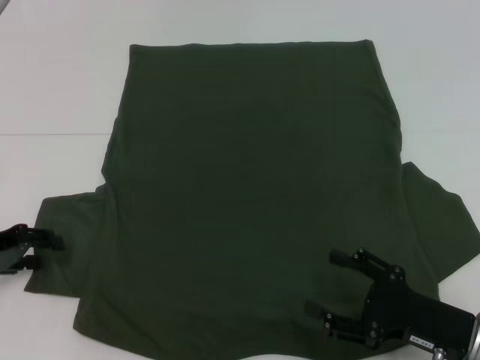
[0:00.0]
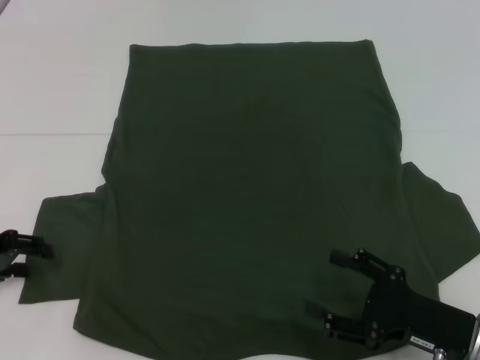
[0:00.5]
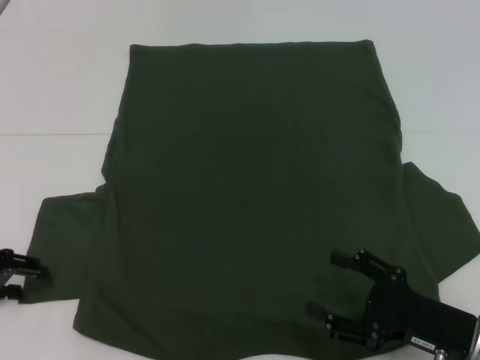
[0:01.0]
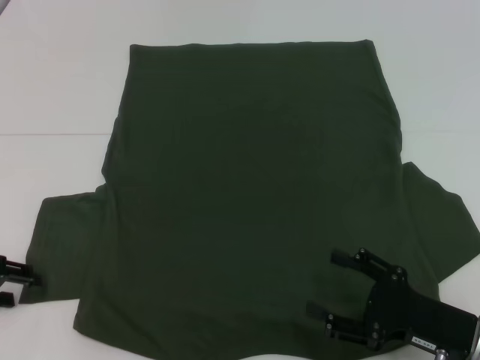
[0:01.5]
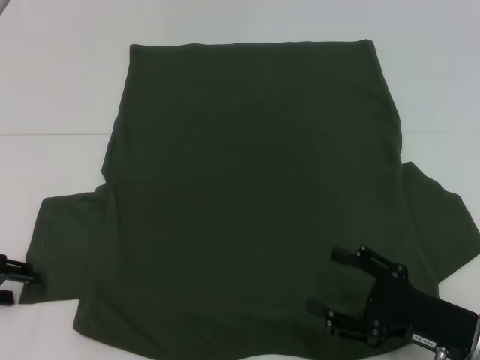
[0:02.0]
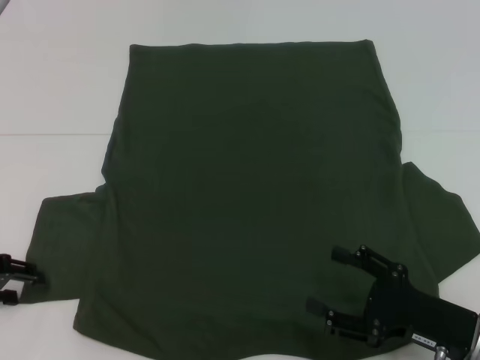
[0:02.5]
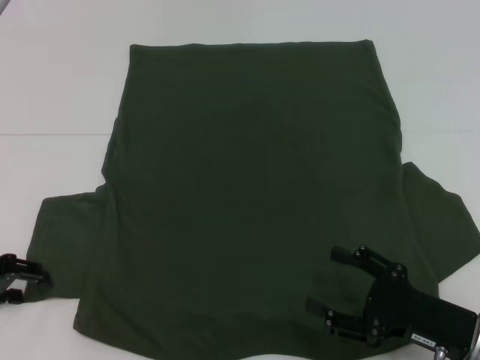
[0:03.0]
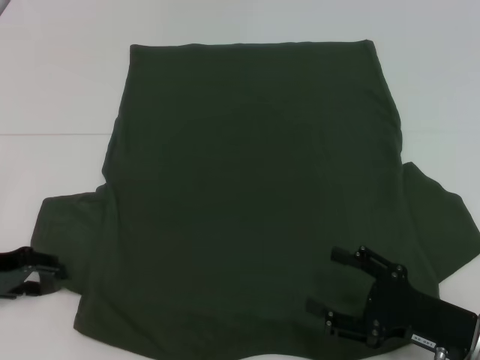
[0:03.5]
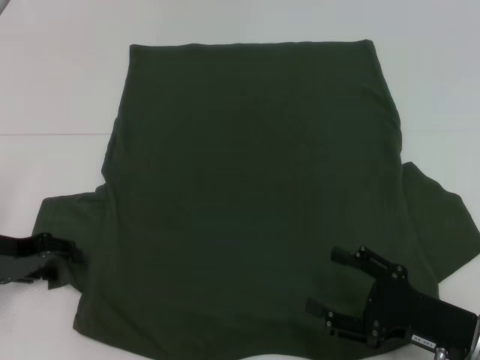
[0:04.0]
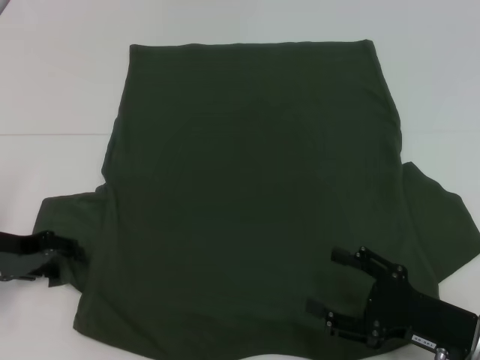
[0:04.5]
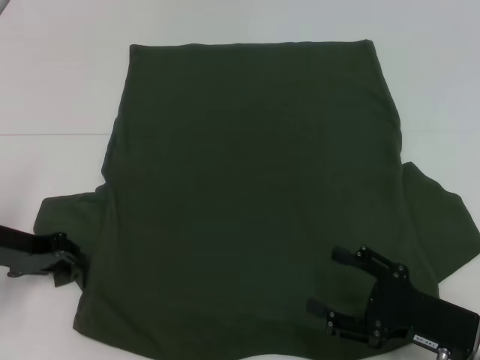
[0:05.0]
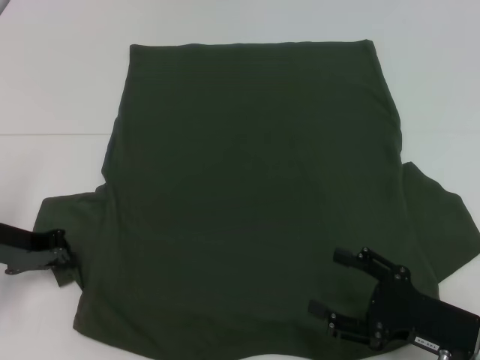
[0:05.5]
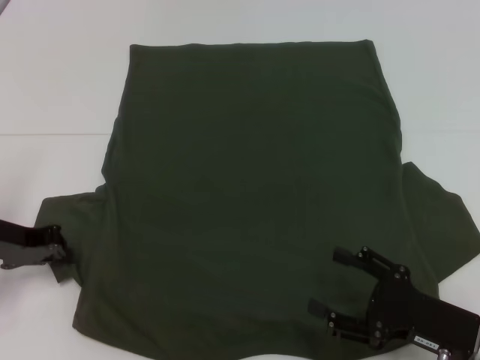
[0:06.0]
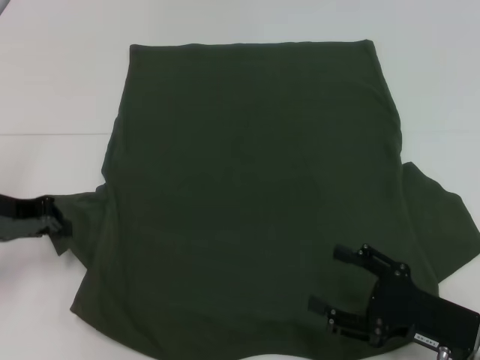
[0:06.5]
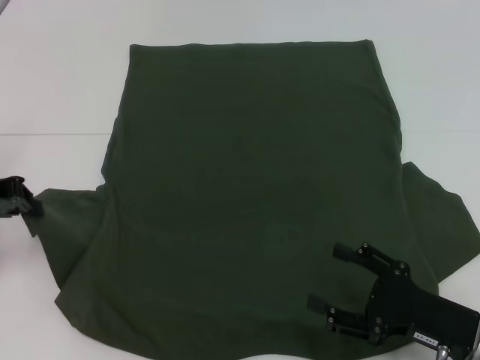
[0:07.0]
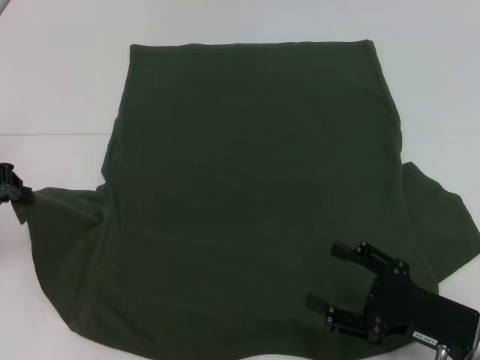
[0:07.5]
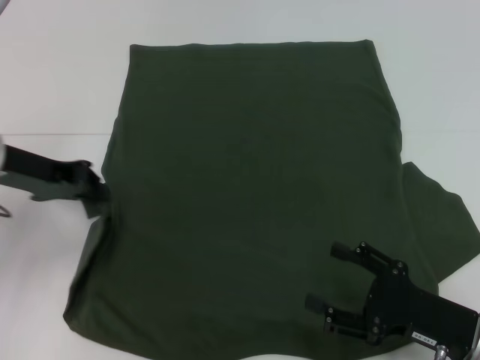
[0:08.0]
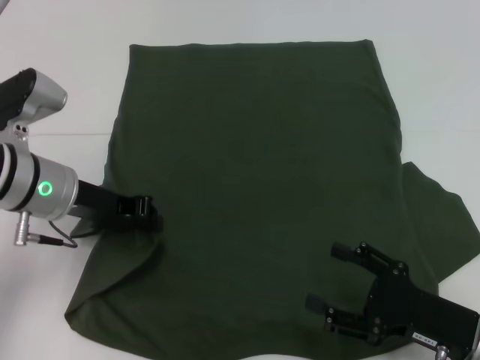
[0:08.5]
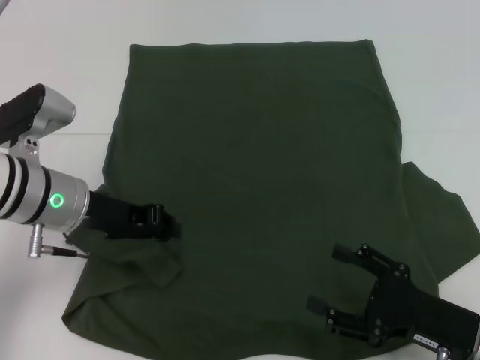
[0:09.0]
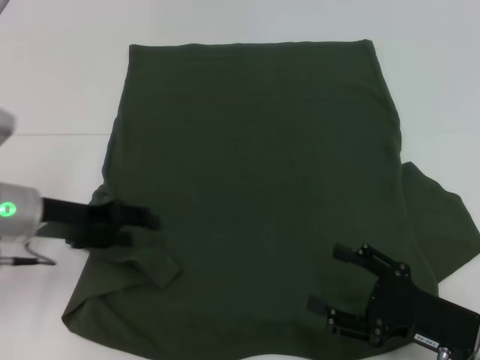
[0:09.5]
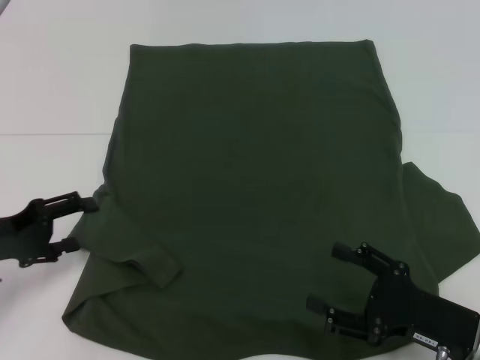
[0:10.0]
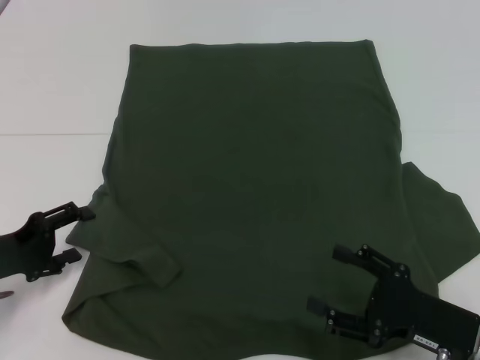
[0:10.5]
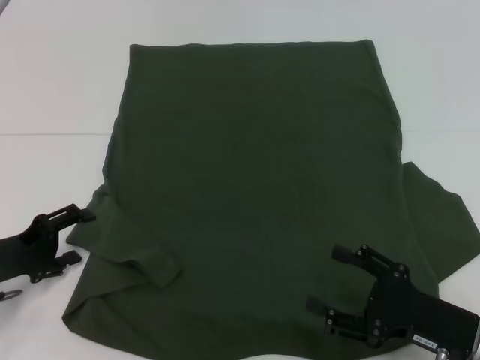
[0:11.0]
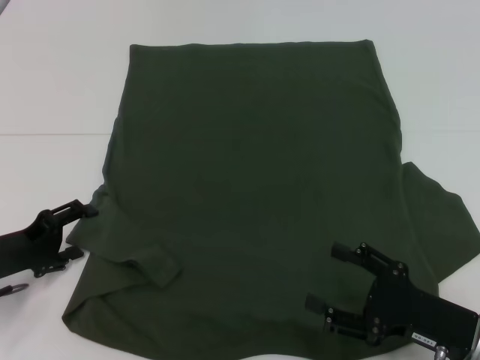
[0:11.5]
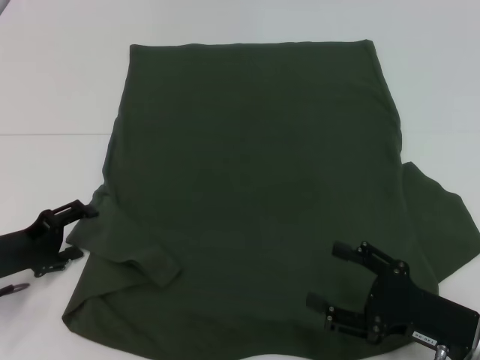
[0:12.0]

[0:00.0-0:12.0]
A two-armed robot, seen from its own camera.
0:00.0 to 0:04.0: There are only small adjustments of the grippers.
0:04.0 to 0:06.0: The left gripper closes.
0:06.0 to 0:08.0: The left gripper is displaced upward by roughly 10 cm.
0:08.0 to 0:10.0: The left gripper travels downward, backward and to the left by approximately 10 cm, and opens up.
0:10.0 to 0:12.0: The grippers make only small movements.

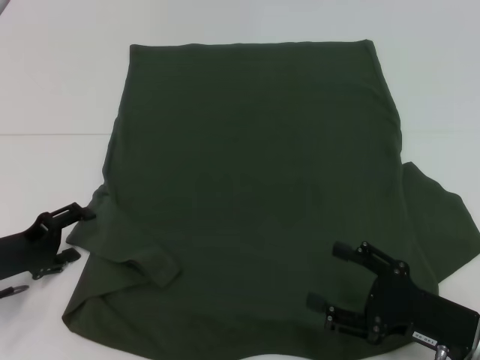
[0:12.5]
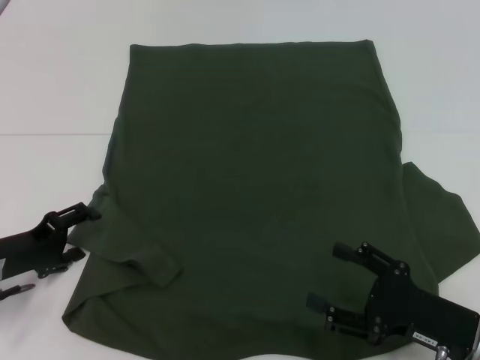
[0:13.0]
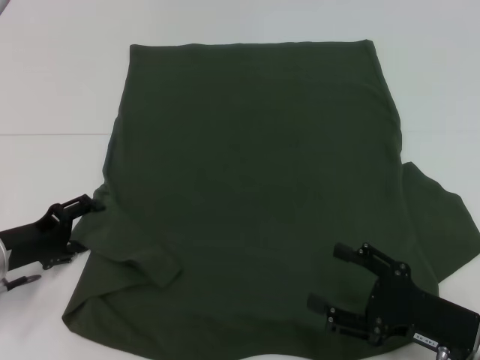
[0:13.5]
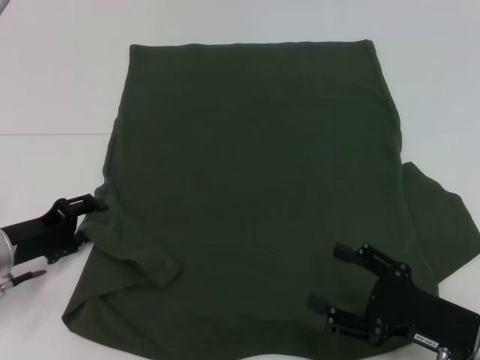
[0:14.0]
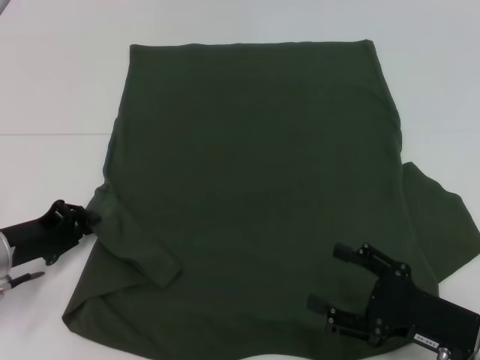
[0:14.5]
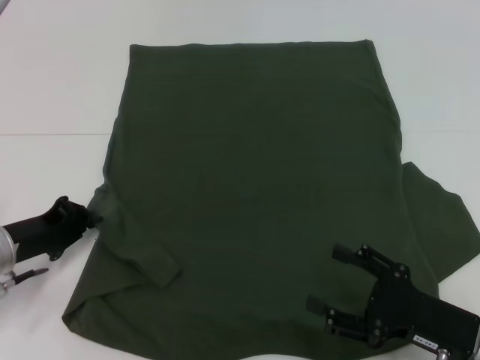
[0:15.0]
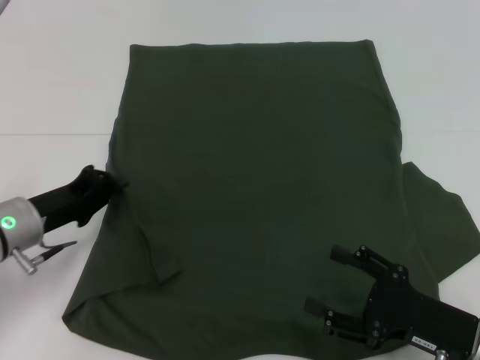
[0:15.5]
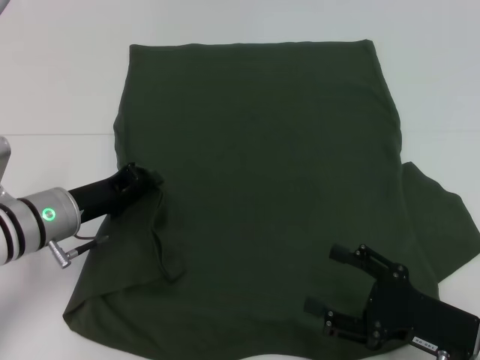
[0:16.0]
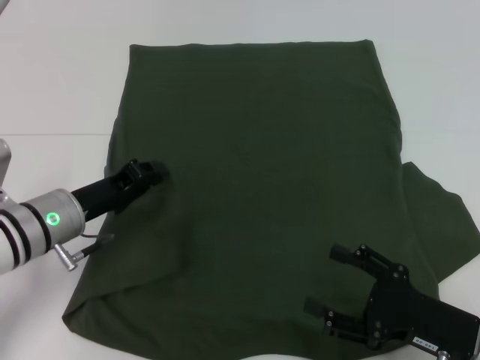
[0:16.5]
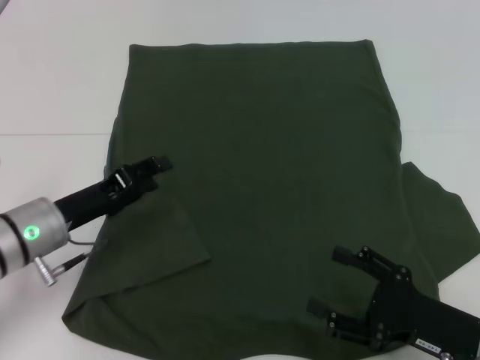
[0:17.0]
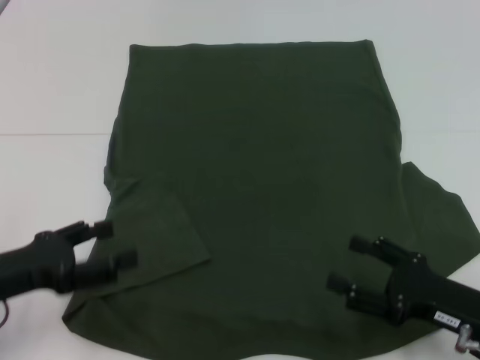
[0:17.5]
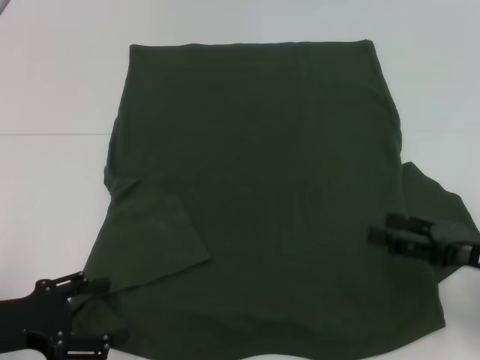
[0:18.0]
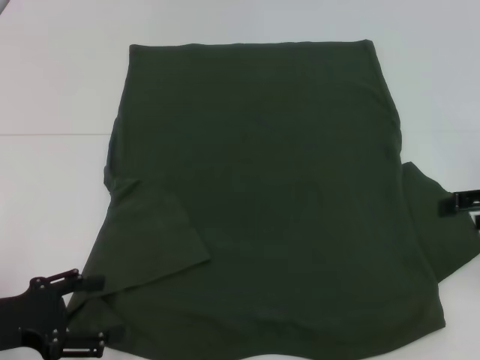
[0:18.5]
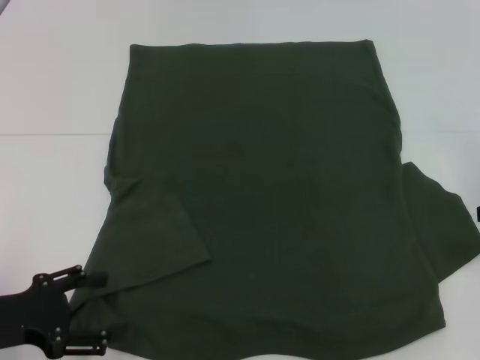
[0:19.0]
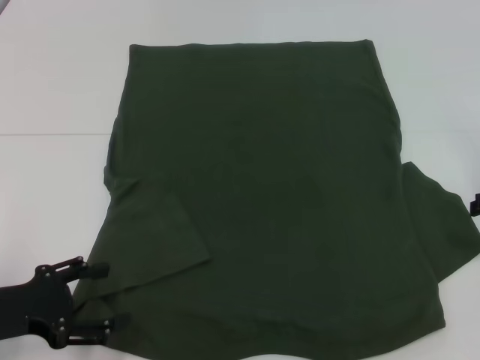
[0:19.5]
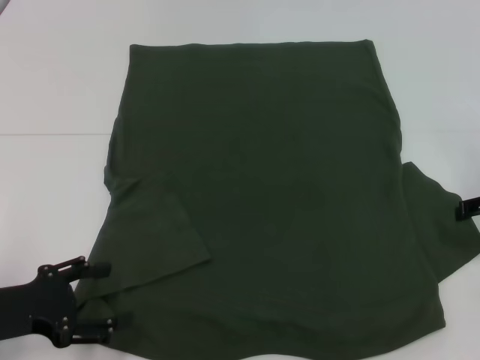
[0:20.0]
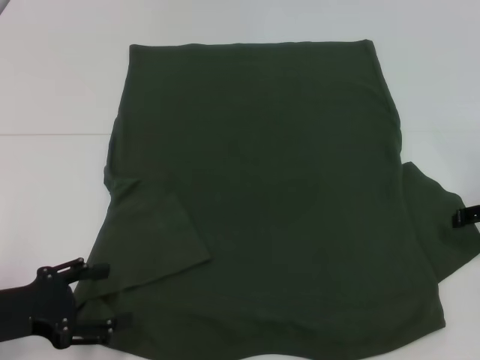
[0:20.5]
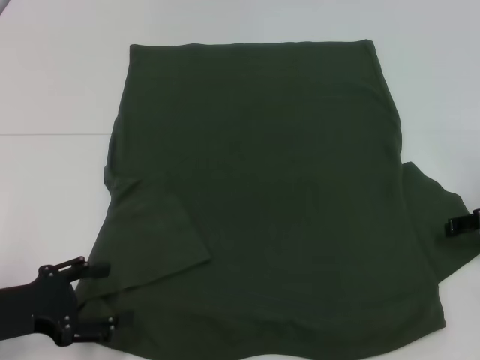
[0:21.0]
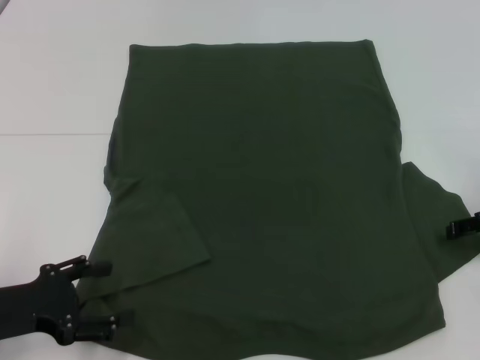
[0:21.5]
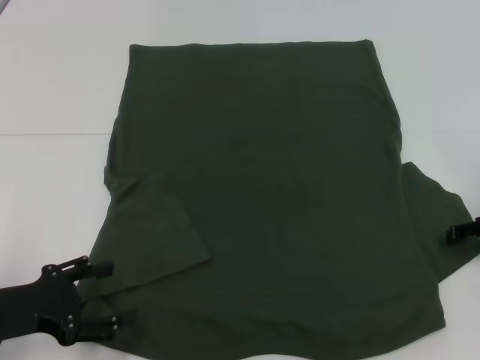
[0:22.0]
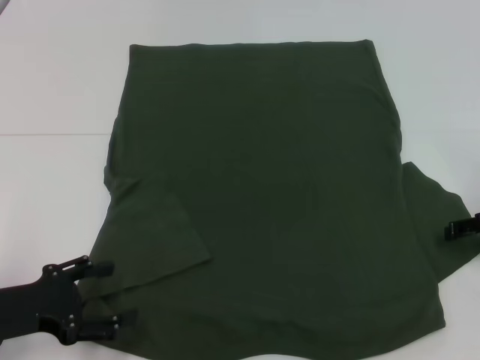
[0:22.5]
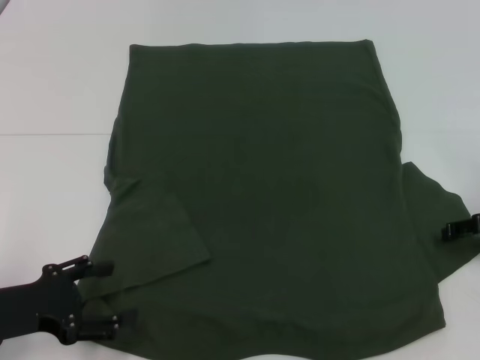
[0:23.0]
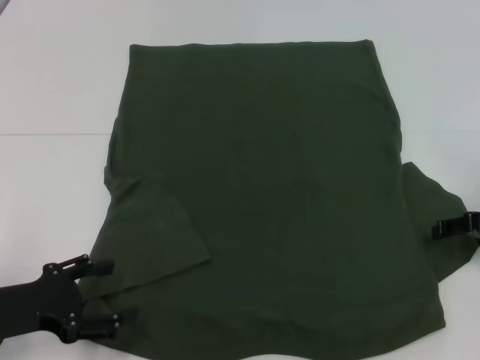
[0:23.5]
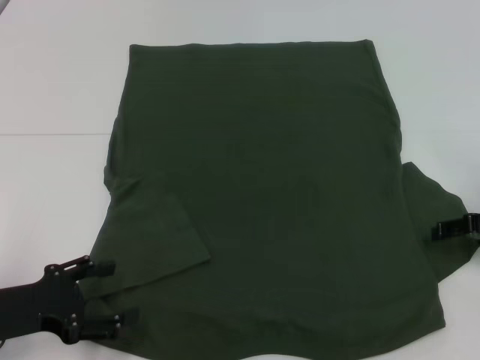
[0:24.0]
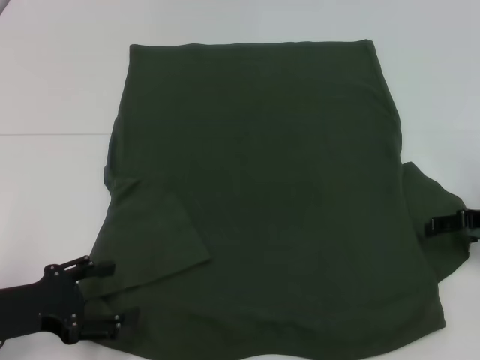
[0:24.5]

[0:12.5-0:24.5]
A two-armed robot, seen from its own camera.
Step, 0:12.5 to 0:16.5: Fold the bottom left sleeve with your left hand.
0:12.5 to 0:14.5: The left gripper closes its fingers.
0:14.5 to 0:16.5: The left gripper heads to the right, covering some 5 cm, and closes.
0:16.5 to 0:18.5: The left gripper moves backward and to the left, approximately 15 cm, and opens up, while the right gripper shifts approximately 20 cm upward, to the right and forward.
0:20.5 to 0:22.5: The grippers move only a little.
0:22.5 to 0:24.5: Neither gripper changes place.

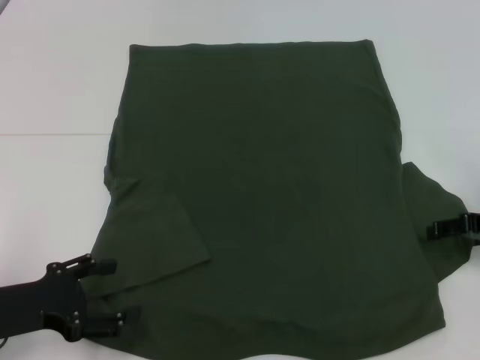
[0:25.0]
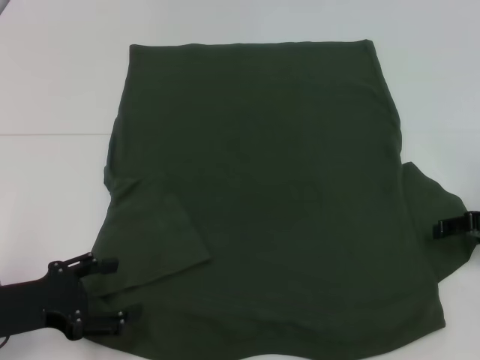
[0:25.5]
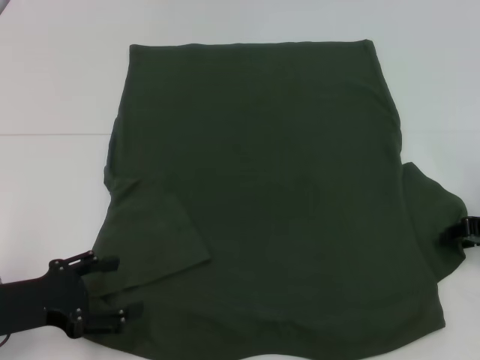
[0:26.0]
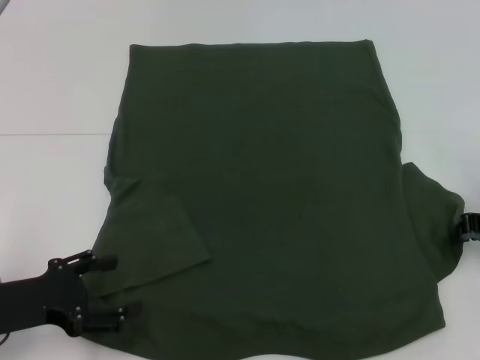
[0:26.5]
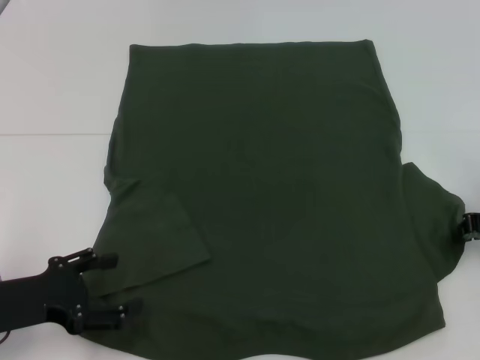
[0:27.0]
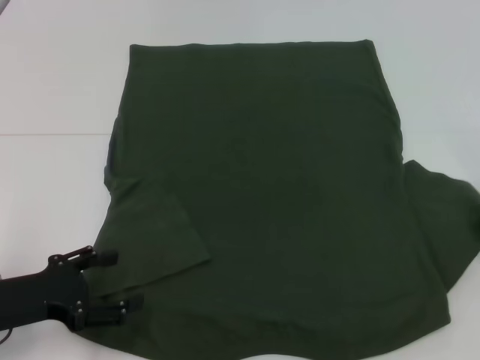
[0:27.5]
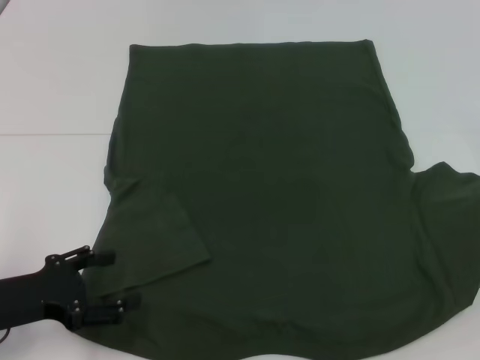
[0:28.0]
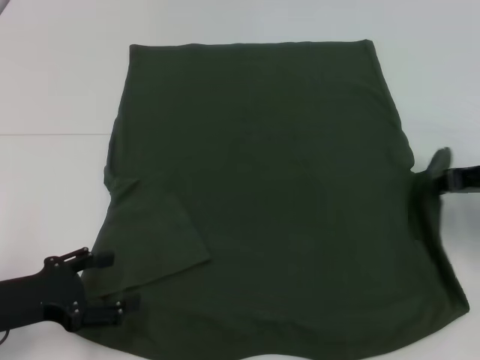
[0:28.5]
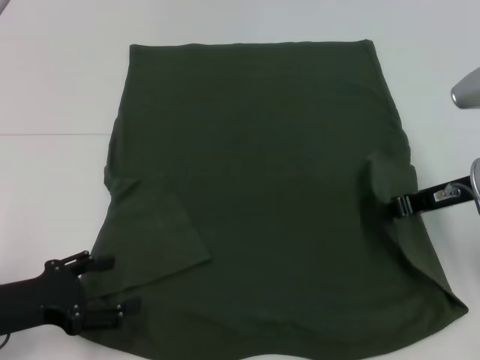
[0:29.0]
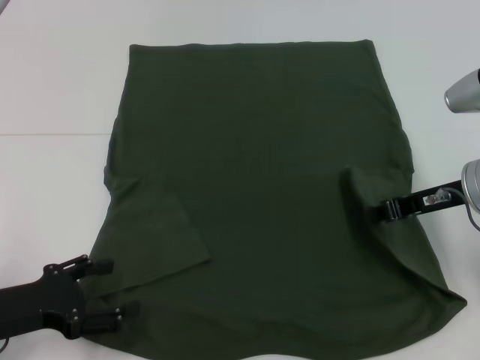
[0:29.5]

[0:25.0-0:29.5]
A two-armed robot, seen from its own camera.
0:27.0 to 0:29.5: The right gripper heads to the left, covering roughly 10 cm.
